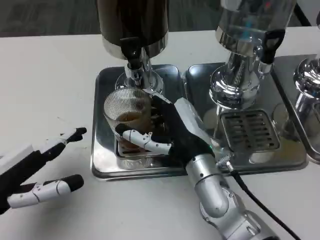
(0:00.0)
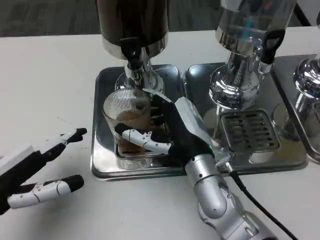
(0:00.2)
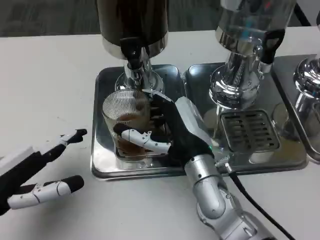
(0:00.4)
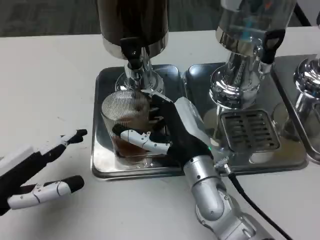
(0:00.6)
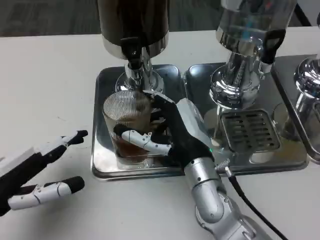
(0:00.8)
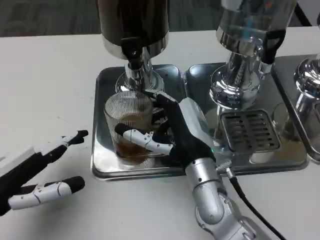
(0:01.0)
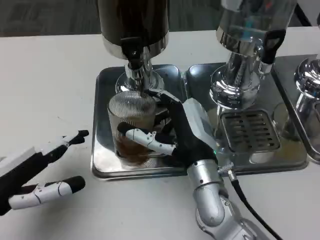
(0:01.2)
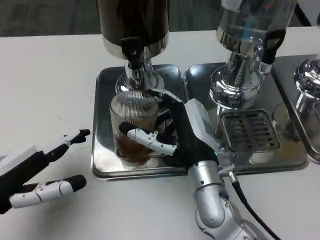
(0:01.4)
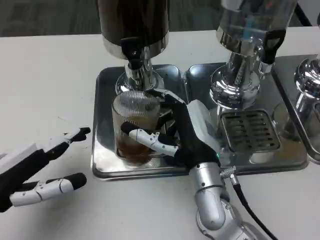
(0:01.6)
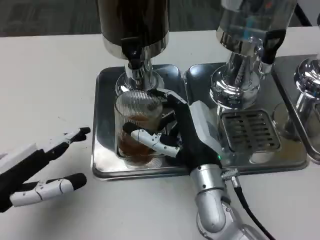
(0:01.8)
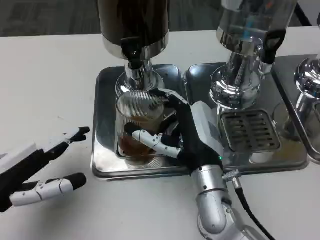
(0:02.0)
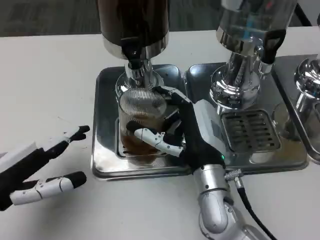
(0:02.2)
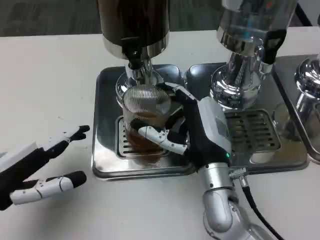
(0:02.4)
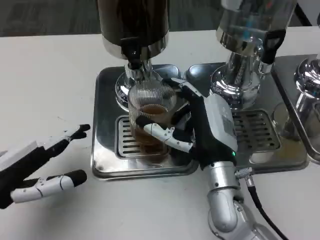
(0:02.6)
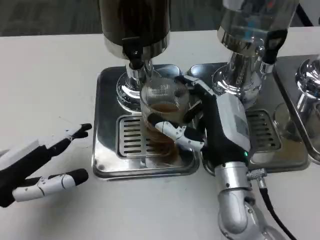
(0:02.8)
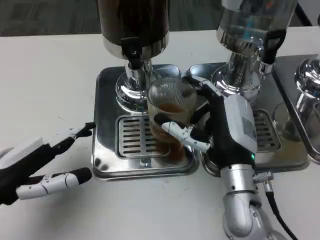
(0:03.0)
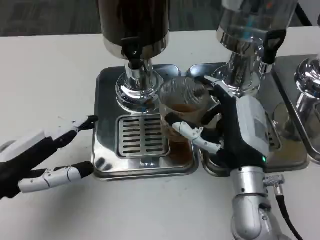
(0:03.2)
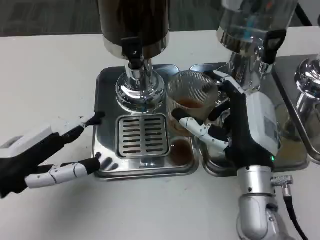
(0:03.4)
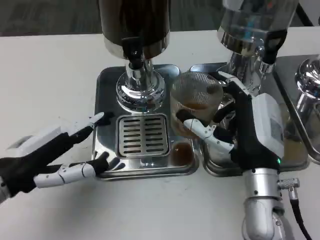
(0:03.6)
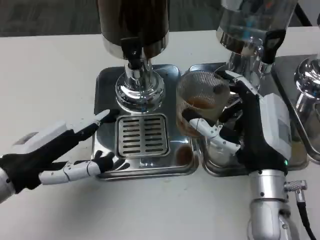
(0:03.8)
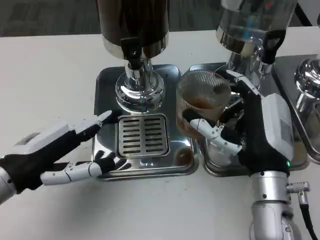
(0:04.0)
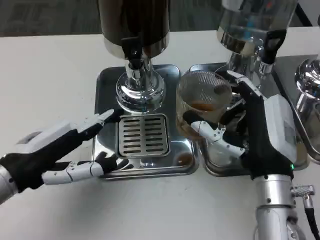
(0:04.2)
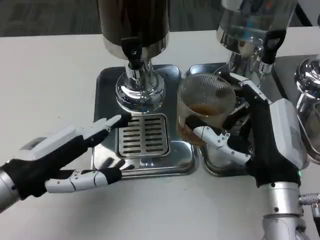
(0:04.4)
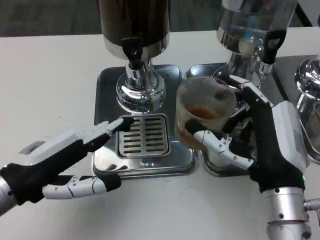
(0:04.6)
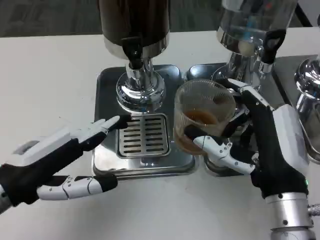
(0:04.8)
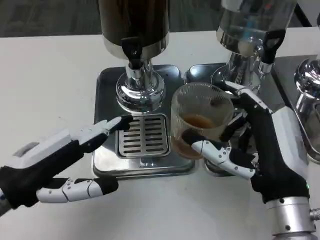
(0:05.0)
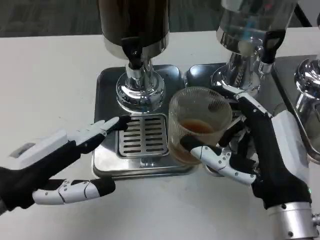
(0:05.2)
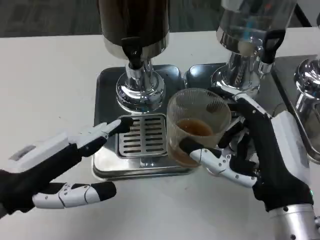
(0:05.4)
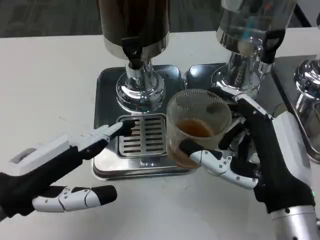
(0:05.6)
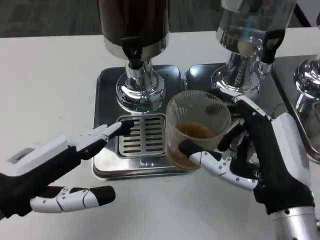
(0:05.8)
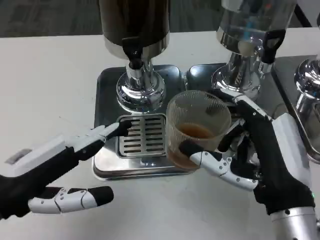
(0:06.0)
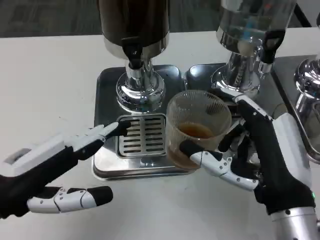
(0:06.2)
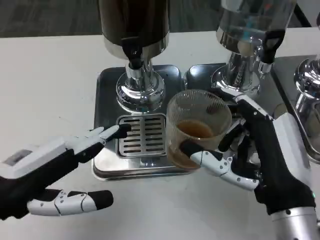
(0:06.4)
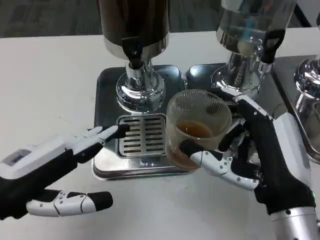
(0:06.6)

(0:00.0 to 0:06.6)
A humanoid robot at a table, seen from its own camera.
Task of the whole recording: Grasp the cup under the faucet to collect the drink, then remove the cup.
0:00.0 - 0:01.6: The hands move only a little.
0:01.6 - 0:03.2: The right hand ends up some 5 cm from where it was.
0:03.2 - 0:05.0: The right hand moves backward, approximately 5 cm.
0:05.0 - 0:06.6: The hands stay close to where they were, moving slightly.

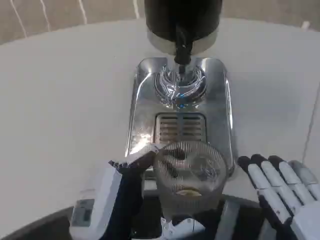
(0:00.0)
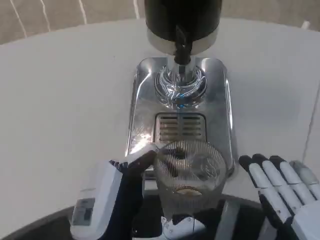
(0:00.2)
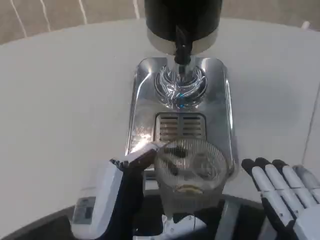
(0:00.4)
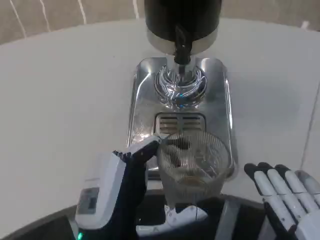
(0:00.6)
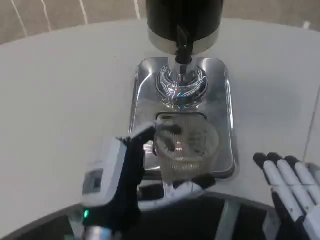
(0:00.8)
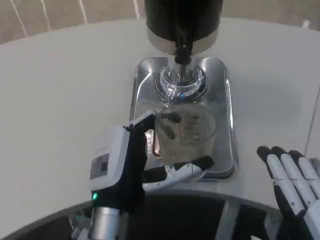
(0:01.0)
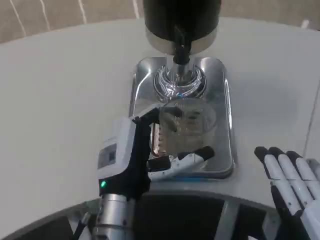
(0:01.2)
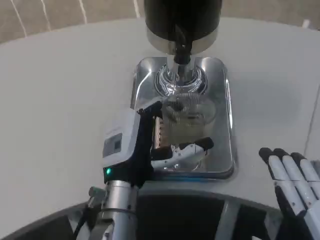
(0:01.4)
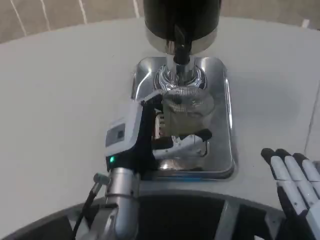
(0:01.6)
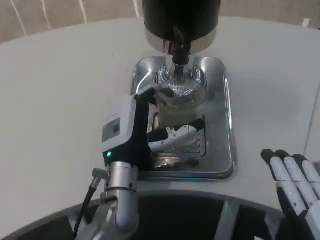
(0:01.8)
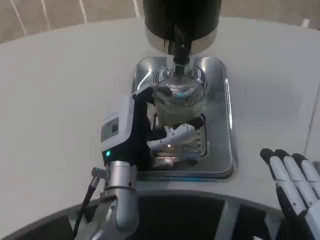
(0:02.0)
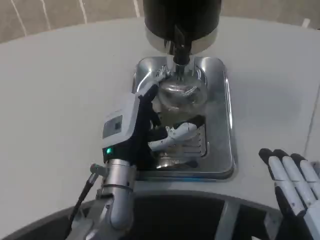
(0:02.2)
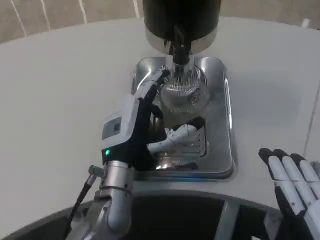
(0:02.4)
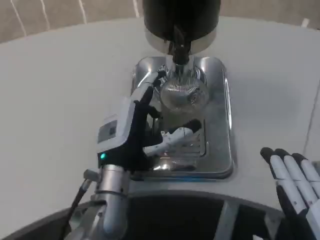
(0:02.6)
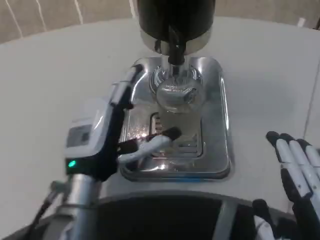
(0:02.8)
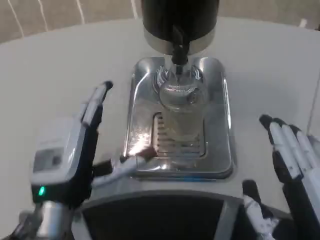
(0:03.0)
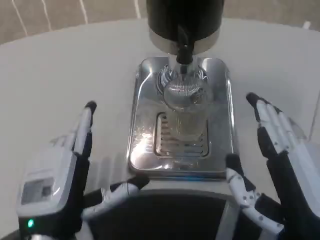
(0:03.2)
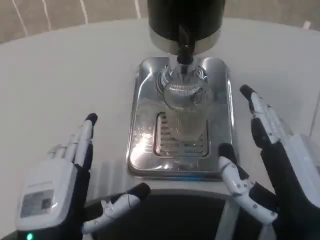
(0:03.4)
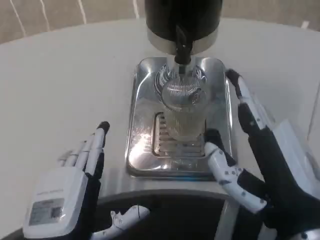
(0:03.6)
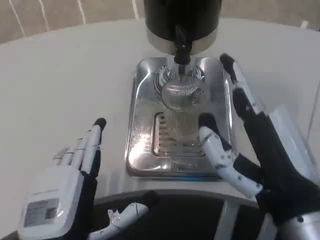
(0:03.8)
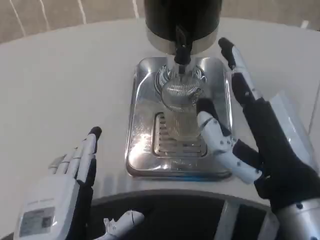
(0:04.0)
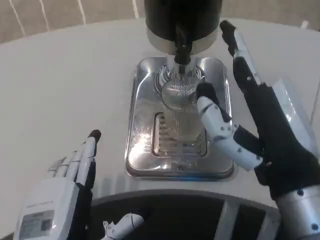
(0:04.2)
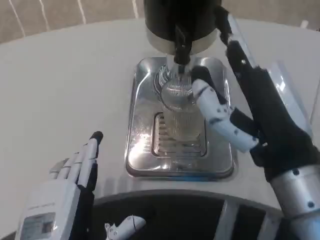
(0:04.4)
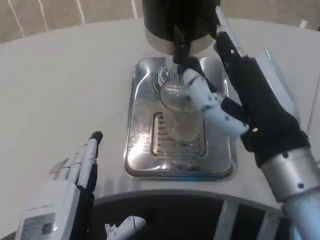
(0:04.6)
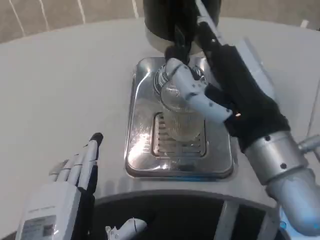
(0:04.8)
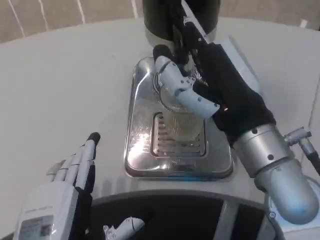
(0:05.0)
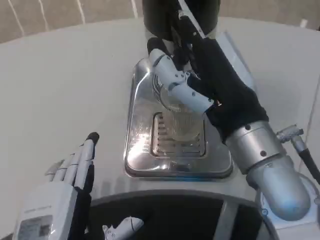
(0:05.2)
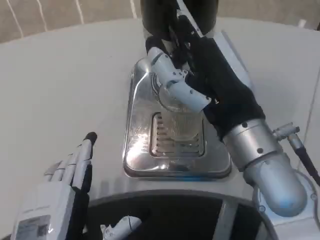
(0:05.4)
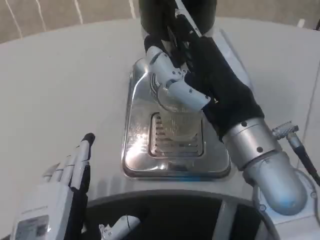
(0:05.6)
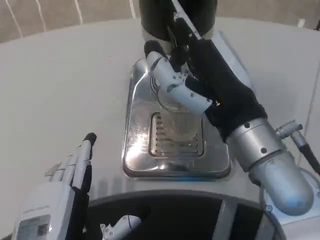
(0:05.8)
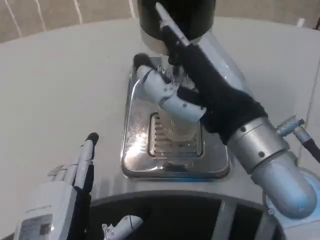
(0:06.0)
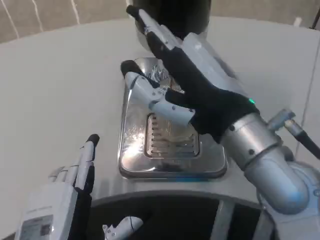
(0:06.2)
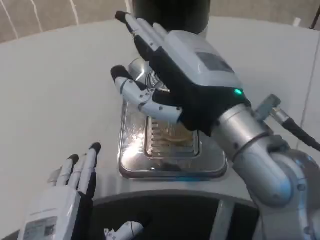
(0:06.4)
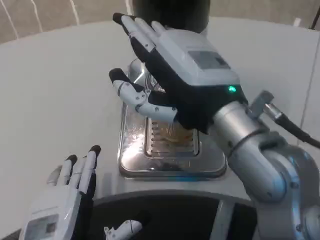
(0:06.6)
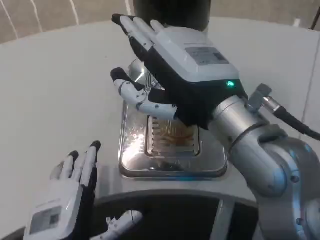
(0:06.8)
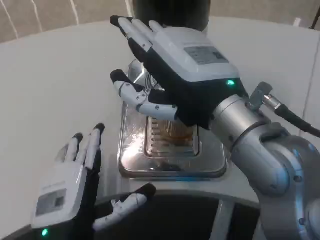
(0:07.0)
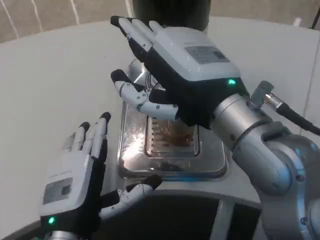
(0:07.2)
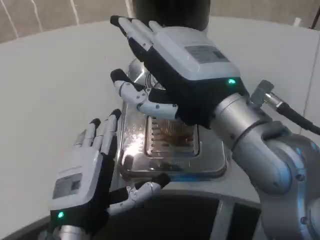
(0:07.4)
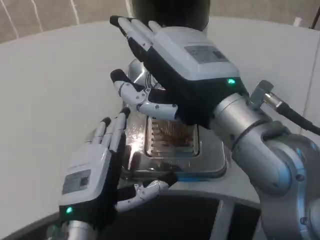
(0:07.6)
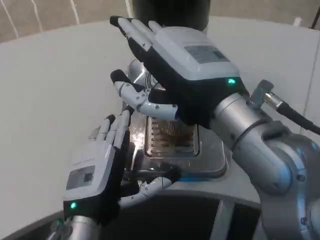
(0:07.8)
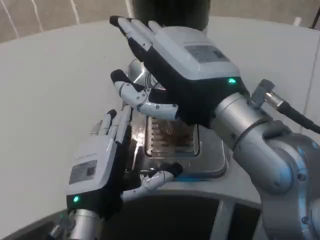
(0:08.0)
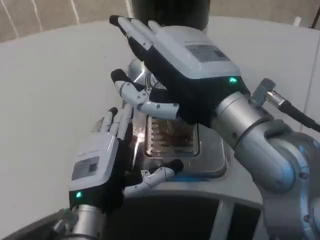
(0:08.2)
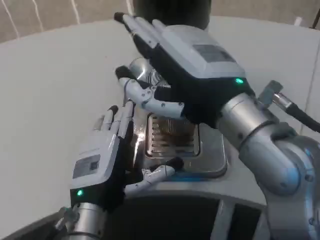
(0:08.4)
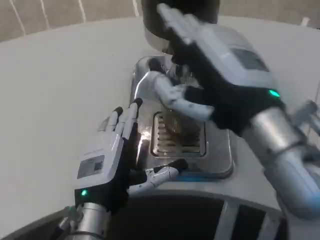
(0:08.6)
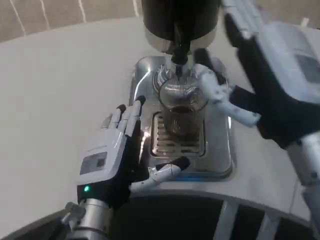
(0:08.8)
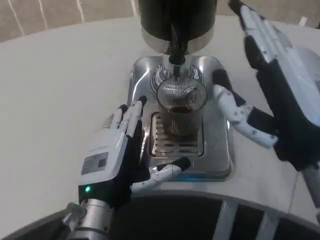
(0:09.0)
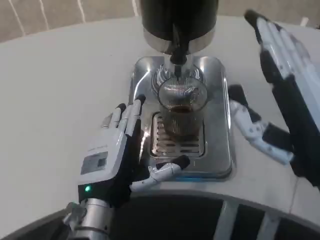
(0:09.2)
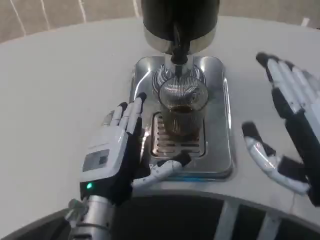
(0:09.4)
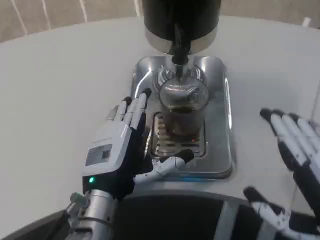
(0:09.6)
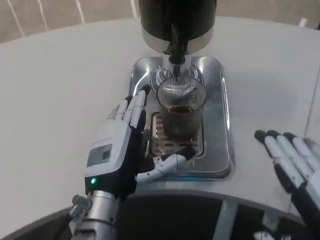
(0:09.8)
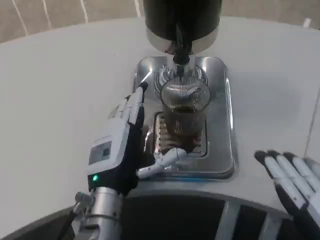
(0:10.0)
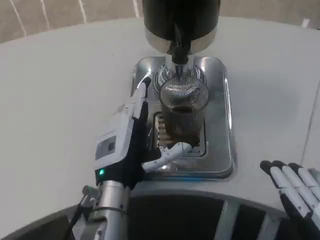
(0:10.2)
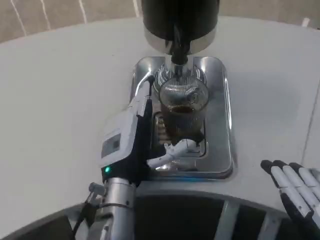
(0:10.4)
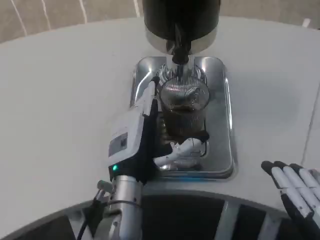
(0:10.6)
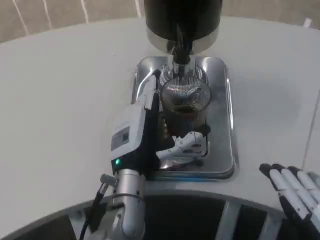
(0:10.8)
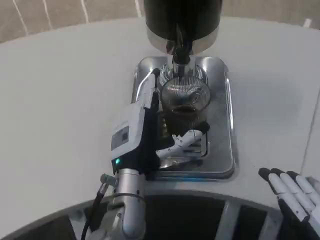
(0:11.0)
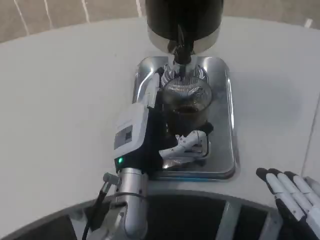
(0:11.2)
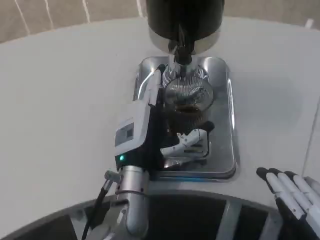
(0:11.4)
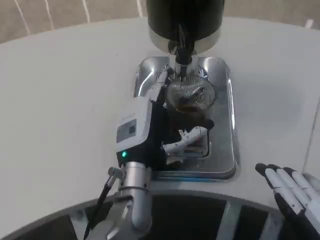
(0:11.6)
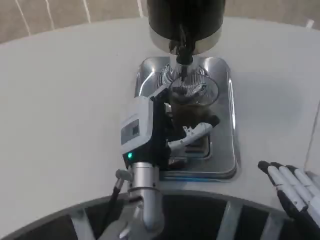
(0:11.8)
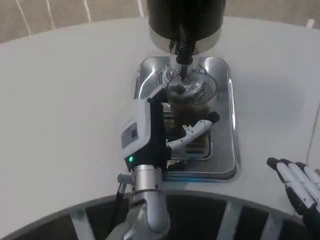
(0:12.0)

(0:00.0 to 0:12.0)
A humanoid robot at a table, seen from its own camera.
Task of the whole recording: Grasp the cup under the faucet to collect the drink, then remove the cup.
0:00.0 - 0:01.6: The left hand moves forward, about 15 cm.
0:01.6 - 0:03.0: The left hand heads to the left and backward, covering approximately 10 cm.
0:03.0 - 0:04.4: The right hand travels forward and upward by some 10 cm. The left hand goes approximately 10 cm backward.
0:04.4 - 0:06.0: The right hand shifts by approximately 5 cm.
0:06.0 - 0:07.6: The left hand goes some 10 cm forward.
0:07.6 - 0:09.0: The right hand is displaced to the right and downward by some 10 cm.
0:09.0 - 0:10.4: The left hand ends up about 5 cm from where it was, while the right hand moves backward, downward and to the right, some 15 cm.
0:10.4 - 0:12.0: The left hand shifts some 5 cm to the right.

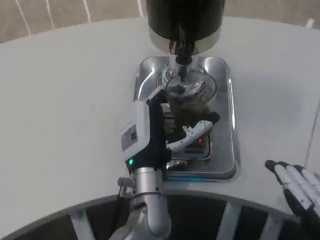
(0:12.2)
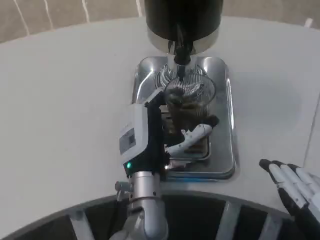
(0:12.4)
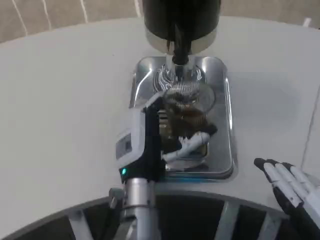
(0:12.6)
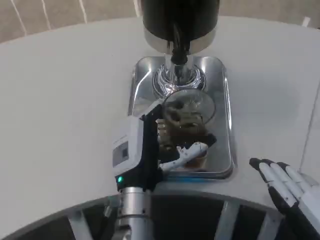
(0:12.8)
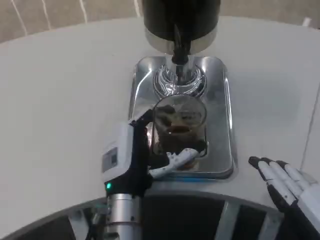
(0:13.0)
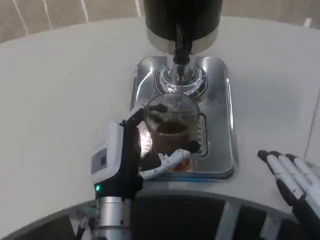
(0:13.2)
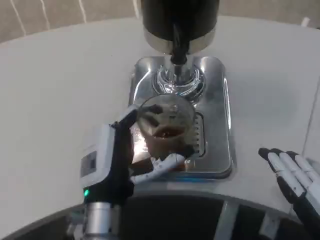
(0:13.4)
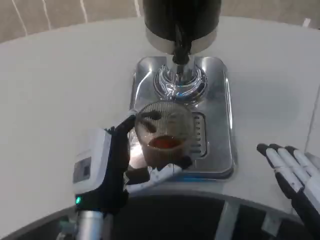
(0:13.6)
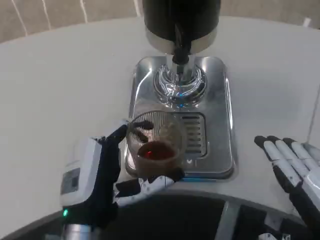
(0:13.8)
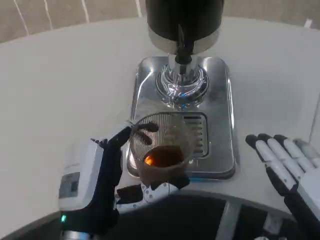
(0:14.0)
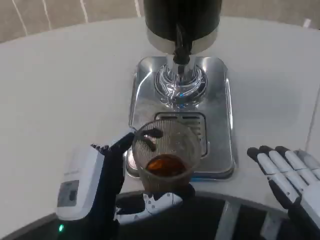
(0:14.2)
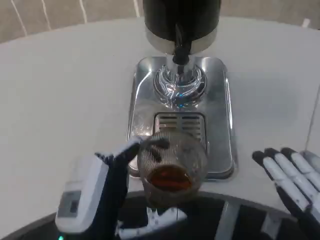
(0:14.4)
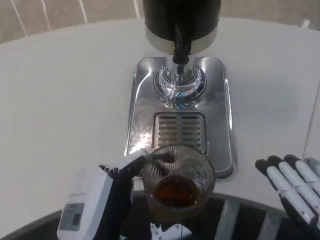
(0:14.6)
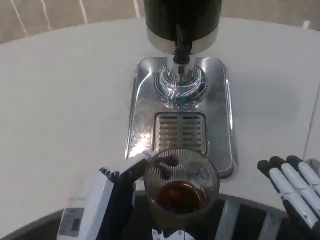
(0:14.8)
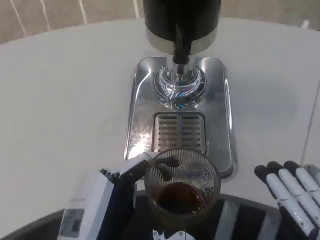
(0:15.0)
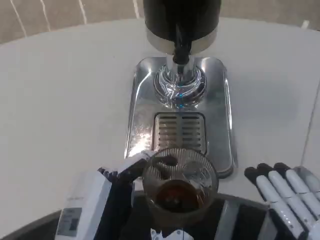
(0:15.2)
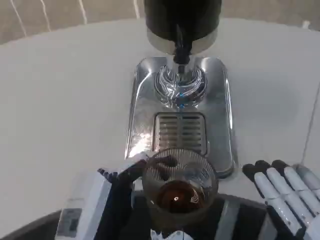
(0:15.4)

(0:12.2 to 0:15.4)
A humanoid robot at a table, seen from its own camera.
Task of the whole recording: Grasp the cup under the faucet to collect the drink, then remove the cup.
0:12.2 - 0:13.8: The left hand is displaced backward and to the left by some 15 cm.
0:13.8 - 0:15.4: The right hand shifts by roughly 5 cm. The left hand moves backward, approximately 5 cm.
